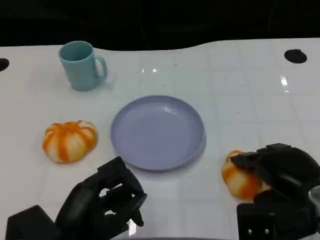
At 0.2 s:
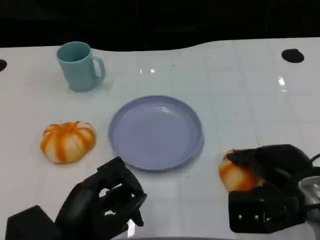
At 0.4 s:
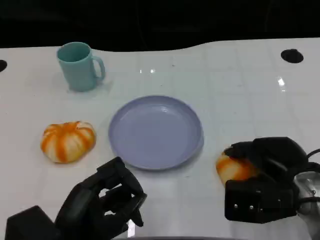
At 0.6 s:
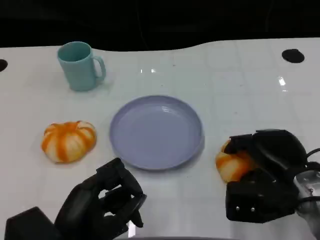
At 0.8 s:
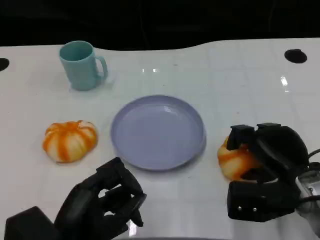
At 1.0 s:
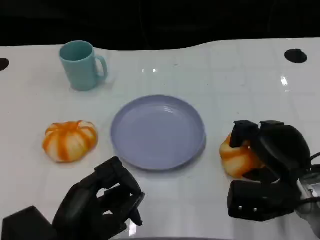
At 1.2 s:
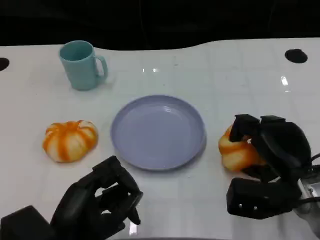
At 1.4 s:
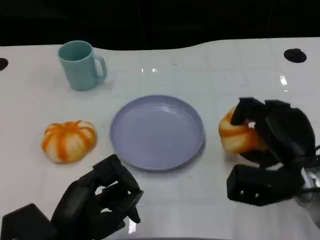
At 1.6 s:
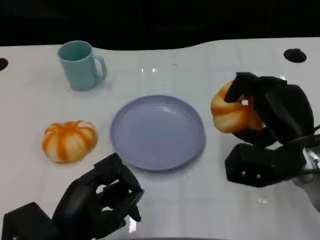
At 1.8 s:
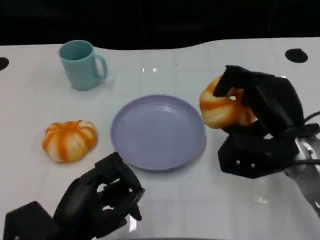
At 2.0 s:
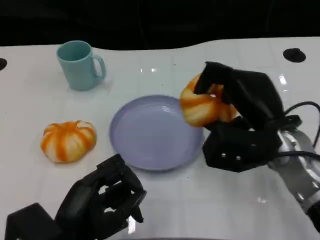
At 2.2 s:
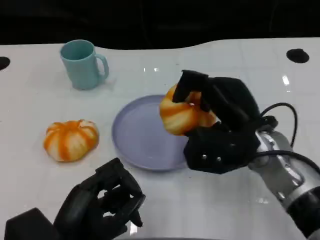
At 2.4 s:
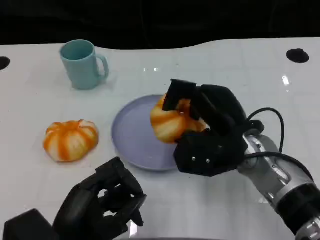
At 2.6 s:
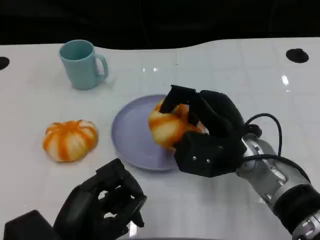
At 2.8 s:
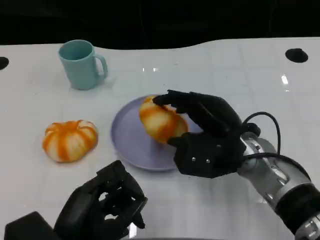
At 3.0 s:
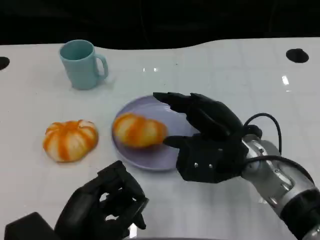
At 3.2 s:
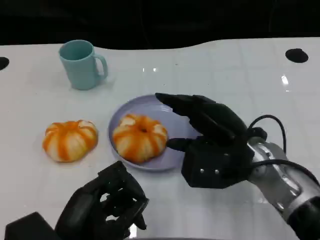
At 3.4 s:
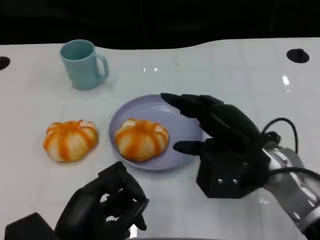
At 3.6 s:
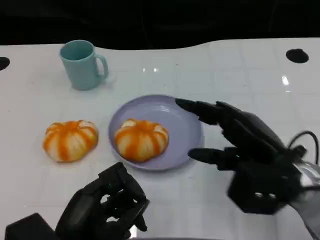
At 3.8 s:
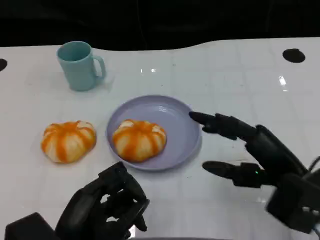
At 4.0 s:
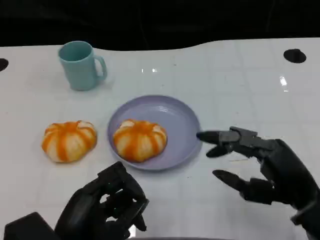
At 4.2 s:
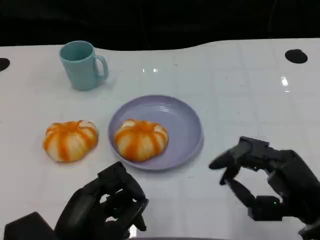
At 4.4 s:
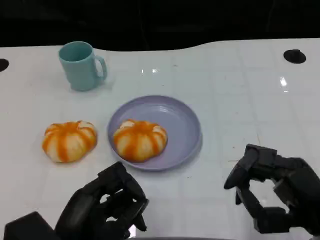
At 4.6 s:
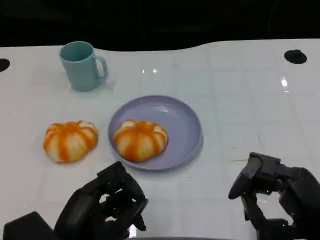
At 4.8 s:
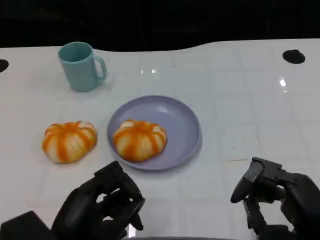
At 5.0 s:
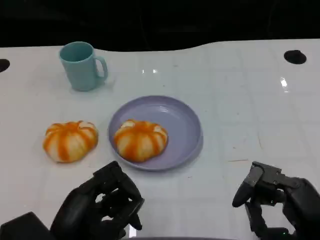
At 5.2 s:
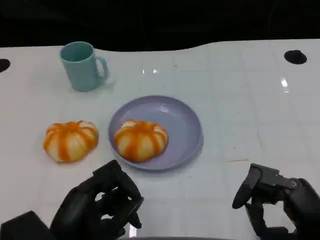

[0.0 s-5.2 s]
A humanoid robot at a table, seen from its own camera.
Task of the whole recording: Grasp the bread from the table and place it into the plate.
0.0 to 1.8 s: The right hand travels forward by roughly 5 cm.
3.4 to 5.2 s: The right hand shifts about 15 cm backward and to the right.
